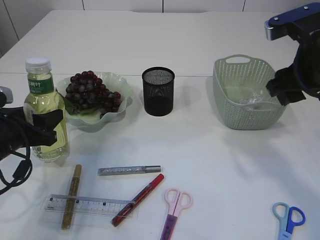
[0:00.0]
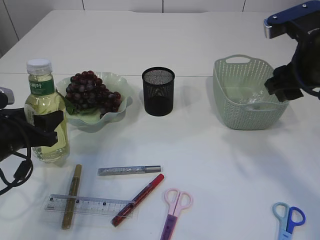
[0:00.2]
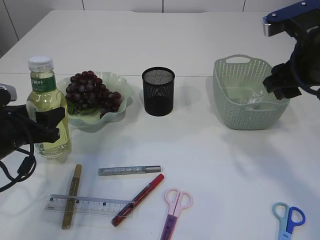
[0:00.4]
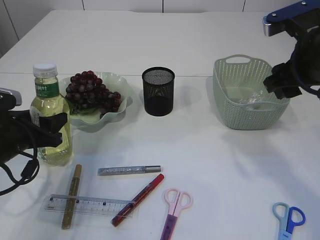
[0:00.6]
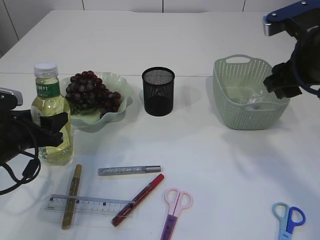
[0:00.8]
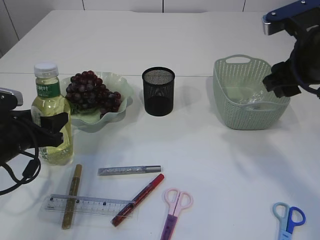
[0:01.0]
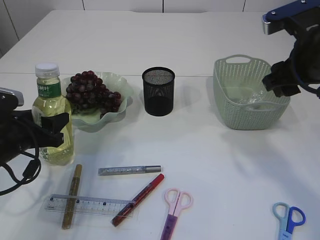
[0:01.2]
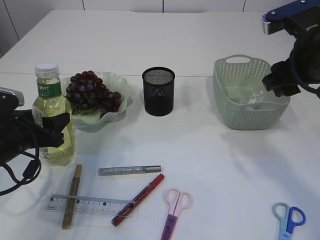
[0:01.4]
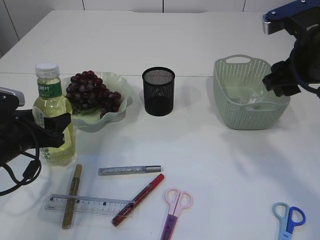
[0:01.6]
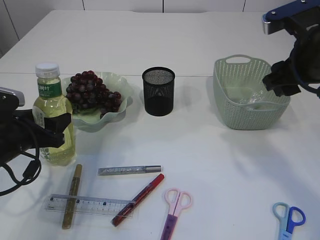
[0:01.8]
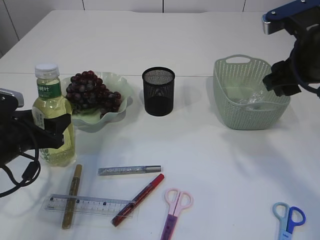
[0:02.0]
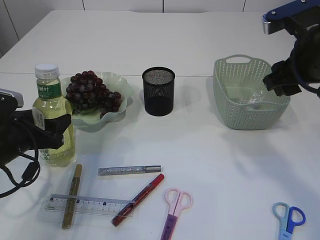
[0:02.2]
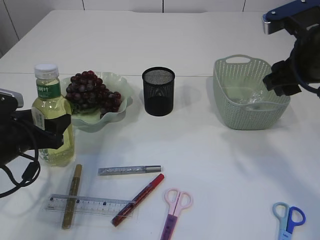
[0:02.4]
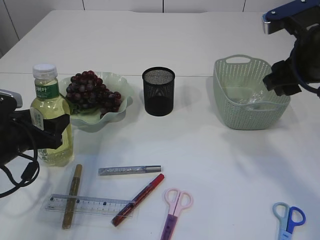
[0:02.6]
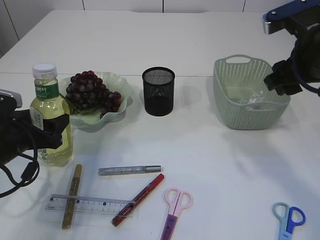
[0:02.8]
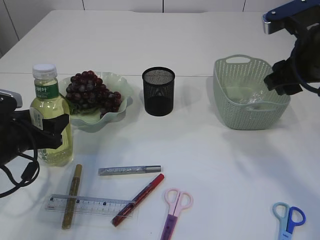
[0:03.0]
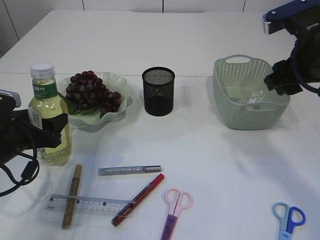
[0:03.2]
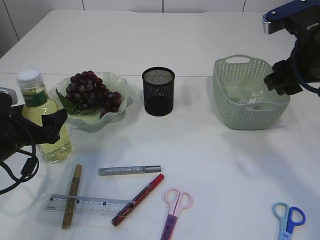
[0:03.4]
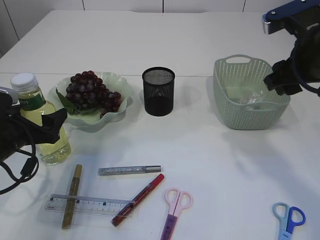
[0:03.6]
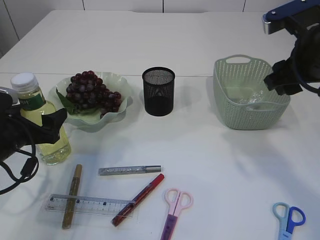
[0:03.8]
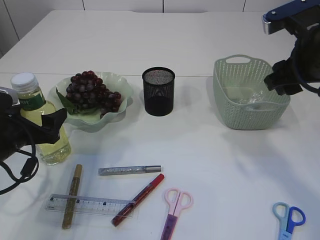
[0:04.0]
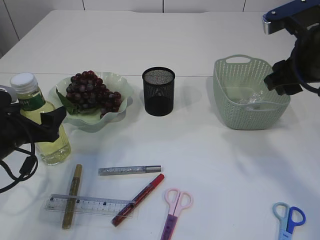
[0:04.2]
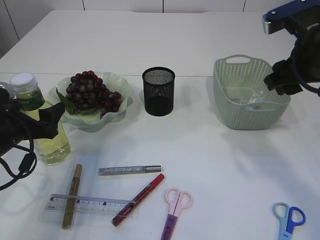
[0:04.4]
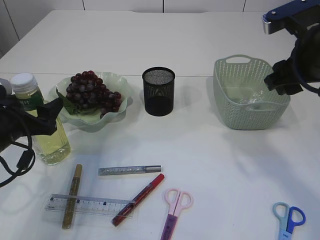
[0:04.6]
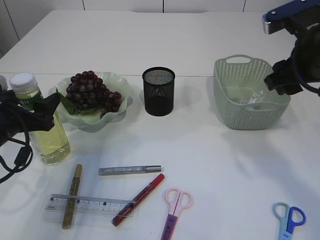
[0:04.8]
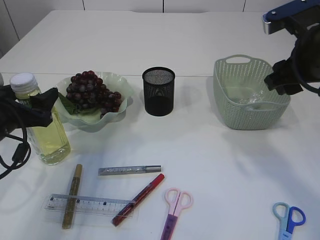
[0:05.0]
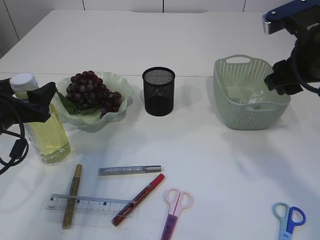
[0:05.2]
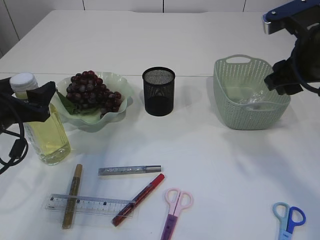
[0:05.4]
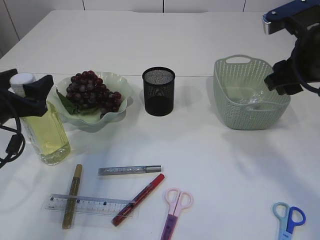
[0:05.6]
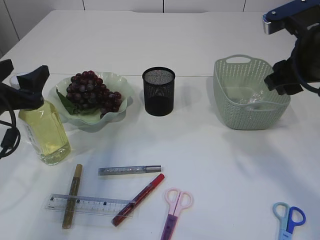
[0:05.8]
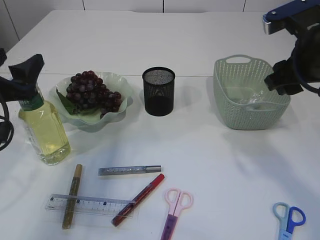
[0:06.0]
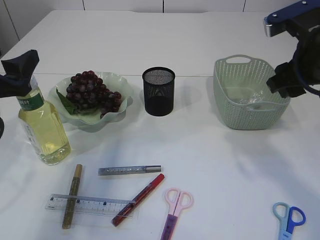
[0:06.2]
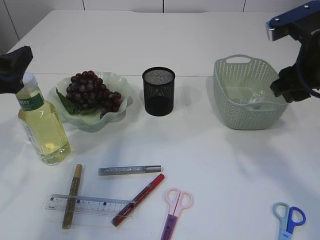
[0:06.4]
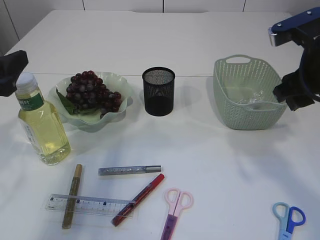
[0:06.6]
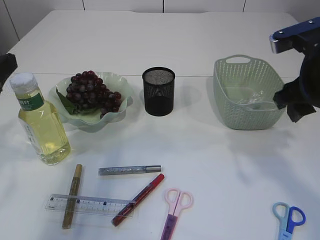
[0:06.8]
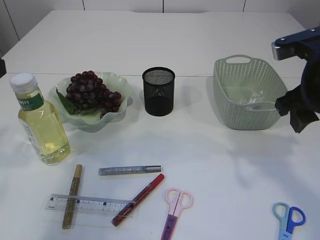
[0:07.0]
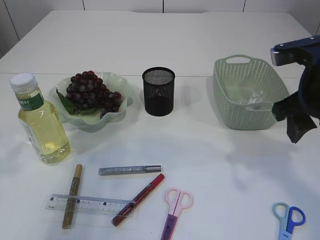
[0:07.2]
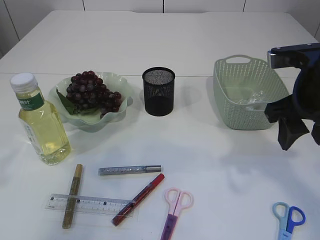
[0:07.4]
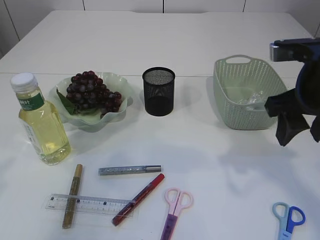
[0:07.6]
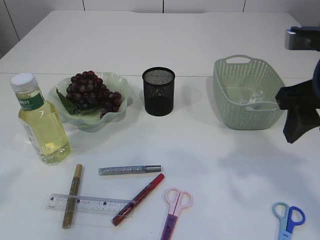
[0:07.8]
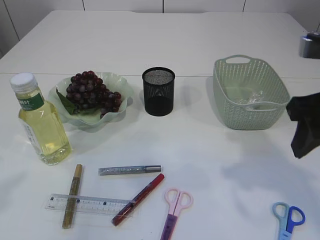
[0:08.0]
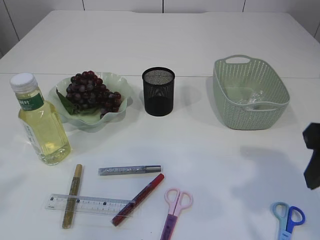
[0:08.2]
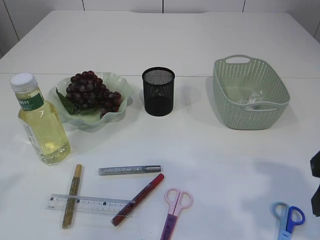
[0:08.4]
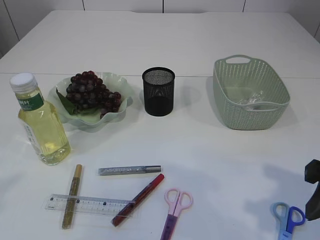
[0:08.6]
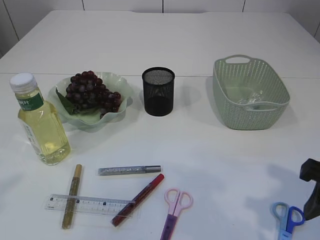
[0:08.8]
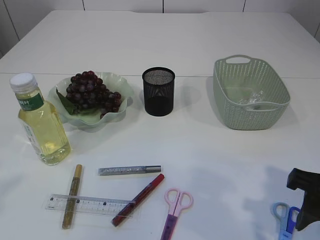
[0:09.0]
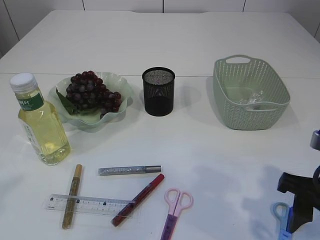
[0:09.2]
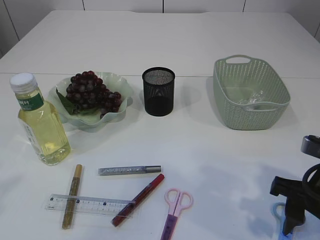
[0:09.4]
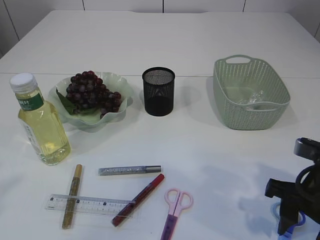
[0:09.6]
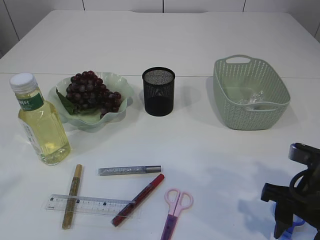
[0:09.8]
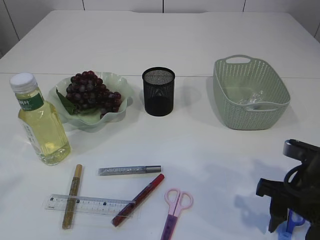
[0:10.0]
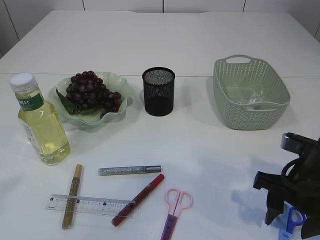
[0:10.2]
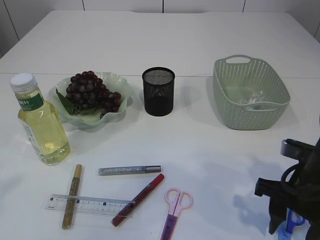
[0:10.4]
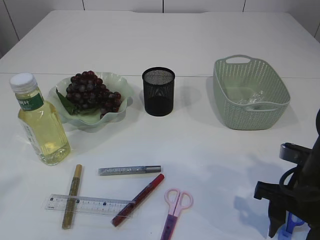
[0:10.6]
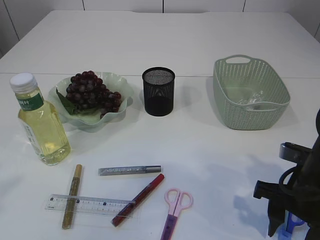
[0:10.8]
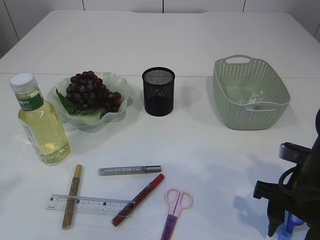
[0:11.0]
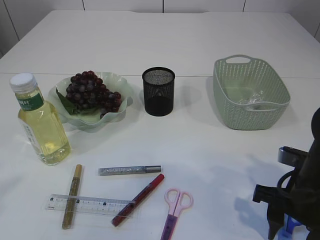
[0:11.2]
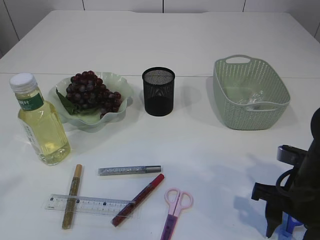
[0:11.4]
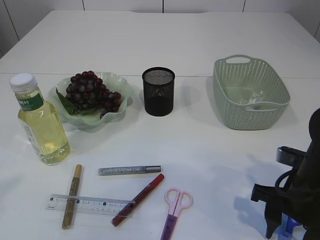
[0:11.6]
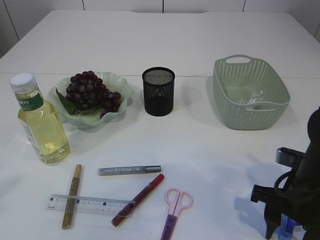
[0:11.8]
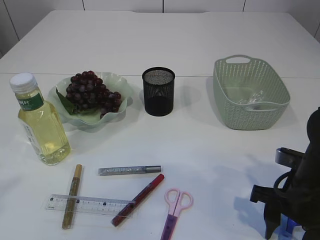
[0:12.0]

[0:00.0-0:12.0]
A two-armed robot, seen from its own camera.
Step, 0:00.0 to 0:06.8: Place the bottle.
0:00.0 to 0:01.6: The grippers make only small movements.
0:01.6 to 0:03.0: Both grippers stay put.
0:03.0 to 0:04.4: There are only small adjustments of the grippers.
0:04.4 to 0:06.0: The left gripper goes about 5 cm upward.
0:06.0 to 0:07.6: The left gripper heads upward and backward, covering some 20 cm.
0:07.6 to 0:09.0: The right gripper is displaced backward and downward by some 10 cm; the left gripper shifts by about 5 cm.
0:09.0 to 0:10.4: The right gripper heads downward, covering roughly 5 cm.
0:10.4 to 0:12.0: The grippers make only small movements.

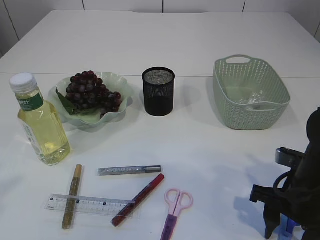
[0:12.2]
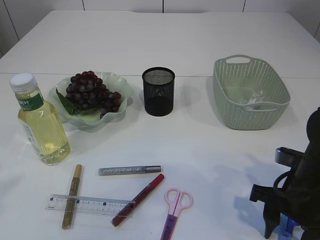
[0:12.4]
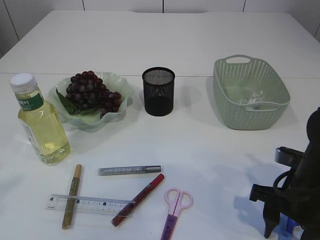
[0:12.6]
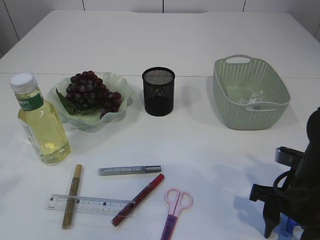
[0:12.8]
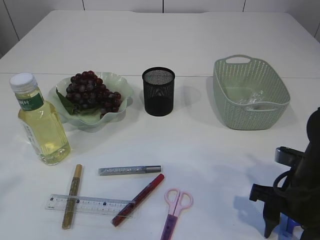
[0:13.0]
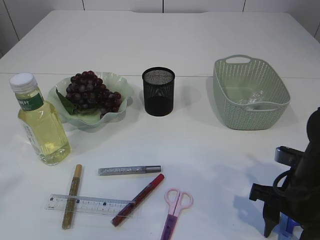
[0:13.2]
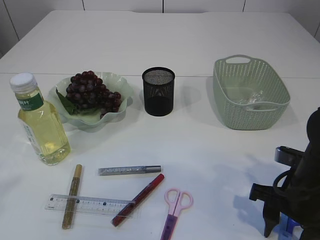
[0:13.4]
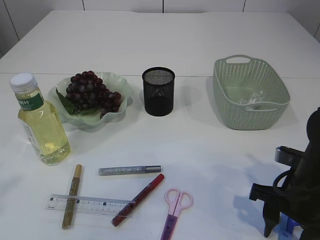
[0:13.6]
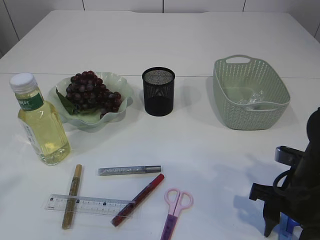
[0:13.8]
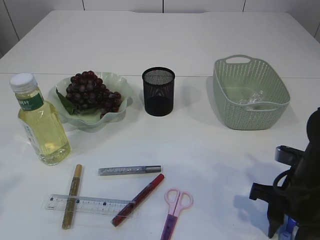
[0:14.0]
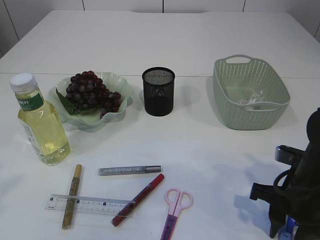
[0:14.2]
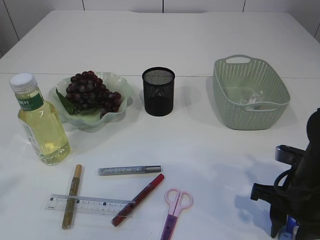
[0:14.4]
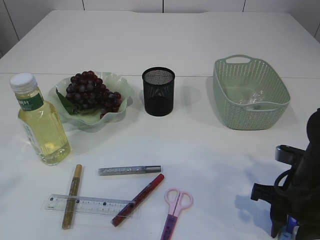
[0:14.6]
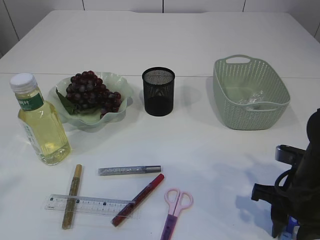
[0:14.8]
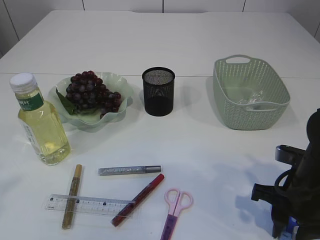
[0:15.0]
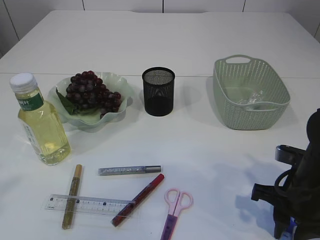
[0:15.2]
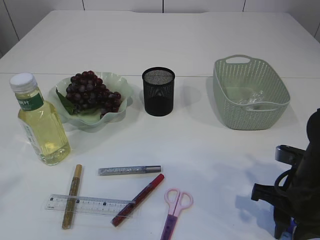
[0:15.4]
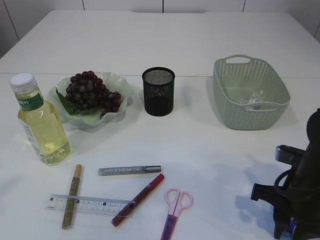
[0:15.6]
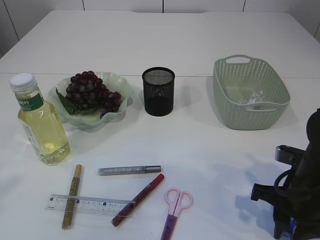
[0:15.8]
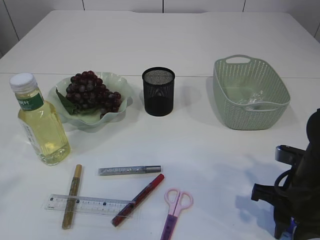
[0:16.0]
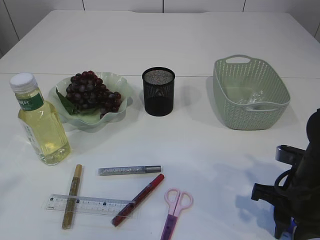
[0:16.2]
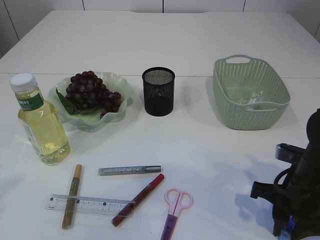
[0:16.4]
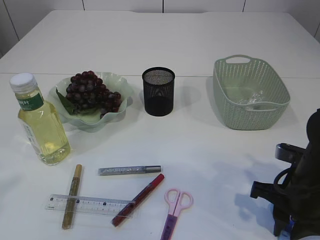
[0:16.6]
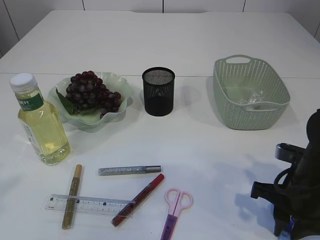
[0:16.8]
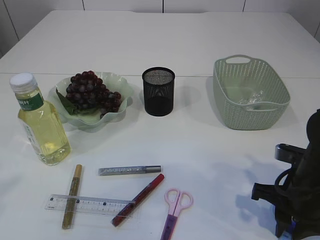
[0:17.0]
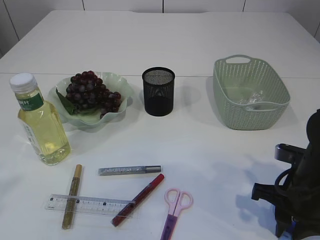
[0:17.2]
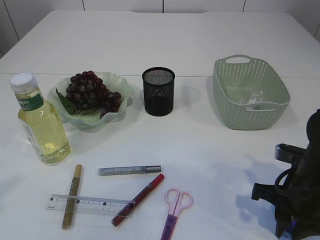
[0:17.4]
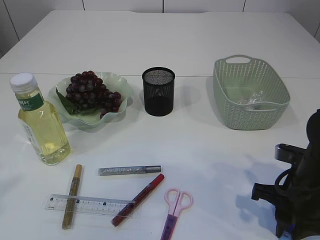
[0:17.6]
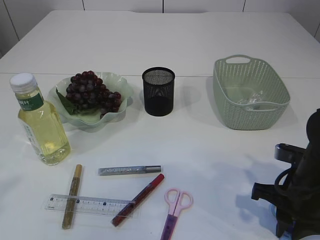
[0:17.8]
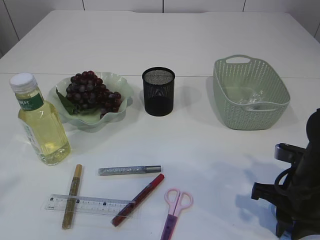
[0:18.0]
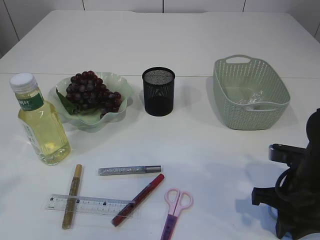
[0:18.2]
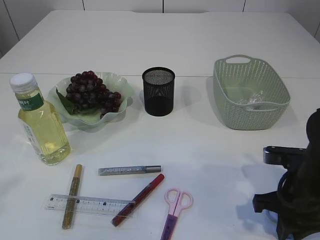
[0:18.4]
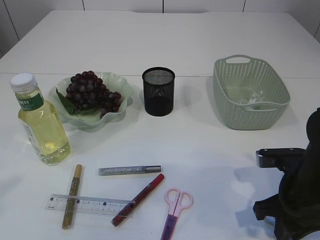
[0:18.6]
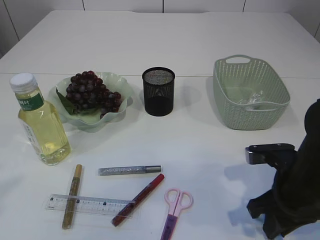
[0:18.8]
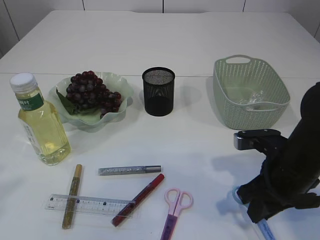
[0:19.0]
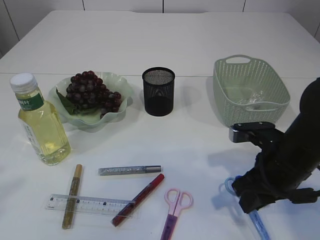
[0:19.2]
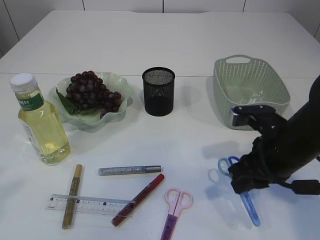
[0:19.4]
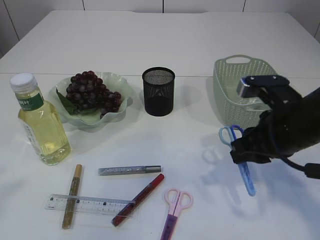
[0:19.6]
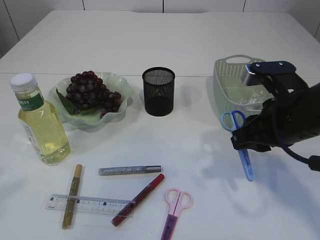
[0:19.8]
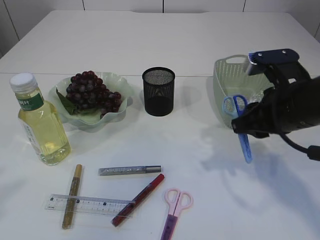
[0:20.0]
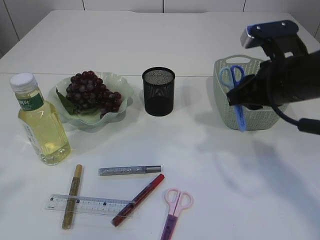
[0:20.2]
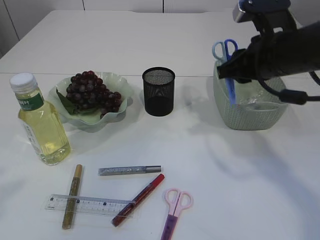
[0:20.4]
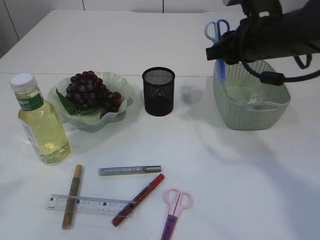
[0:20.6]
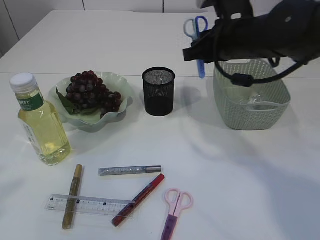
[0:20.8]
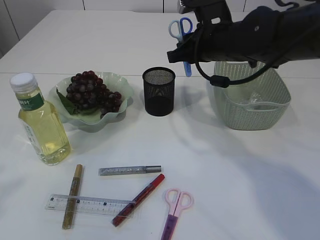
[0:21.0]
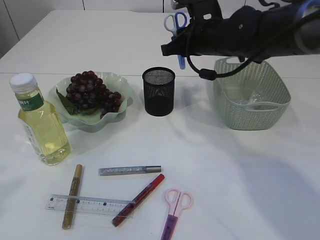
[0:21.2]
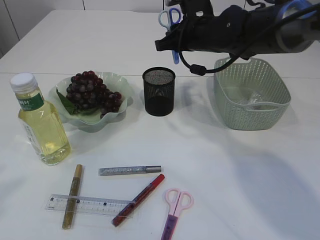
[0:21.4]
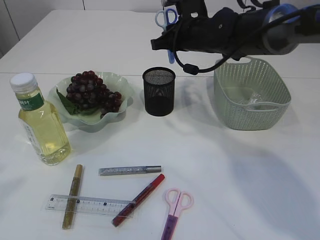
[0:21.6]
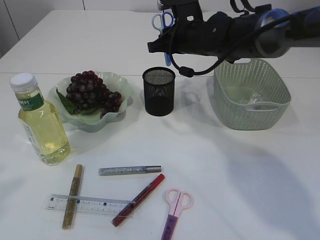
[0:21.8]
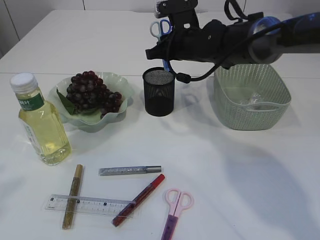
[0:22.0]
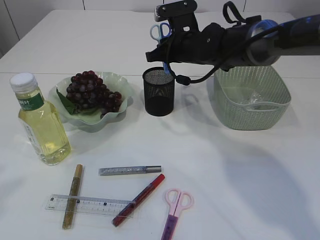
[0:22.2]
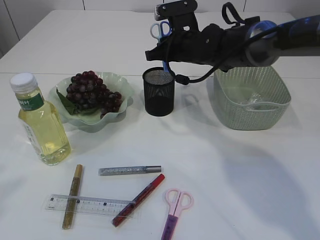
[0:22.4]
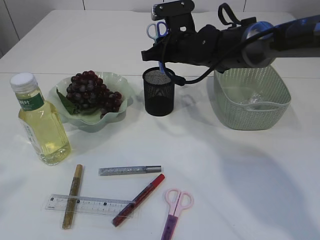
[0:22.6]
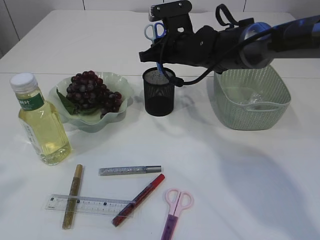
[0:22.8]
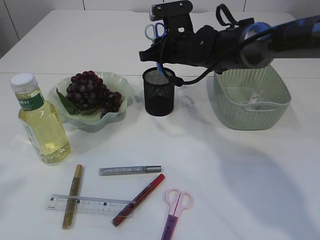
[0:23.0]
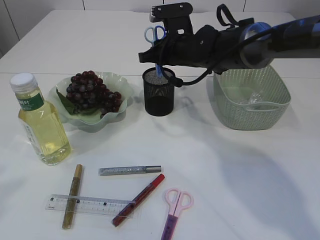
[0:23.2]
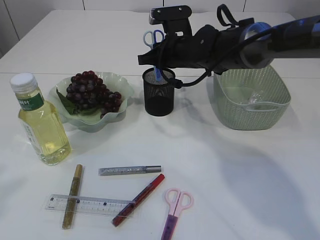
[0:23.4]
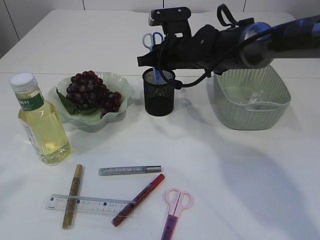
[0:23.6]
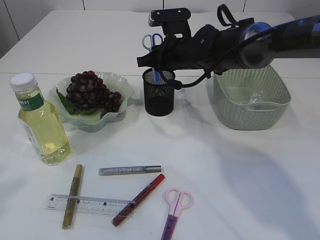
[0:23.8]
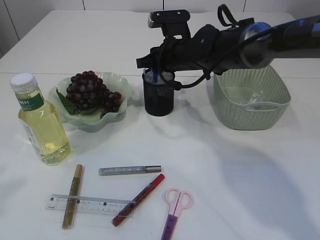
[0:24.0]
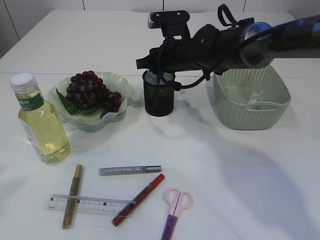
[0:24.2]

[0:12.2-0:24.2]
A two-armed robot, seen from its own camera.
Step, 0:12.2 to 0:19.4: pick up the blue scissors.
0:12.2 to 0:13.8: Neither gripper changes place.
0:13.8 to 0:15.2: The right gripper closes.
0:15.2 to 0:16.6: The two grippers keep their place.
0:16.6 to 0:18.2: The grippers make only small movements.
0:18.2 to 0:19.8: The right gripper moves upward, about 10 cm.
0:19.8 to 0:21.2: The right gripper moves forward and to the left, roughly 20 cm.
0:21.2 to 0:22.6: The right gripper ends up about 5 cm from where it was.
0:22.6 to 0:24.2: The grippers move only a little.
